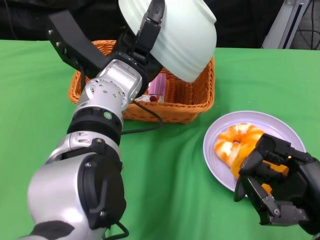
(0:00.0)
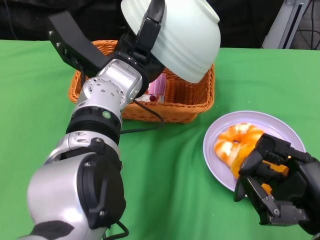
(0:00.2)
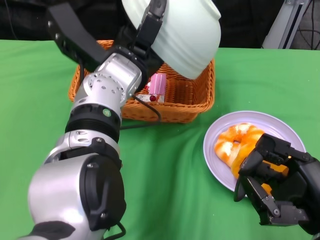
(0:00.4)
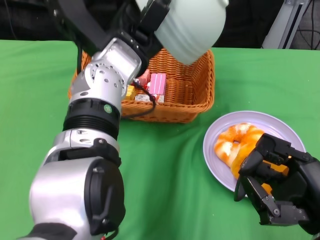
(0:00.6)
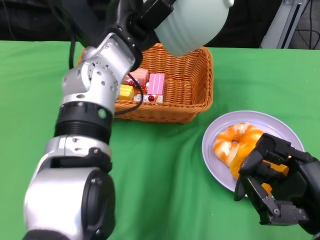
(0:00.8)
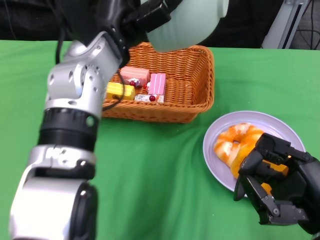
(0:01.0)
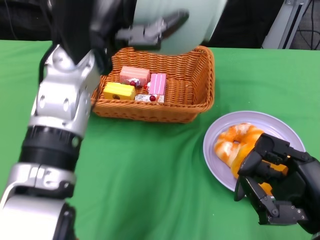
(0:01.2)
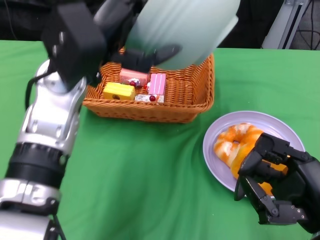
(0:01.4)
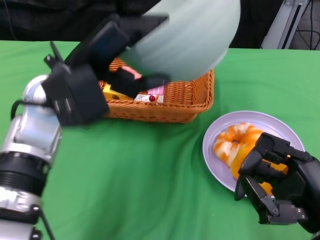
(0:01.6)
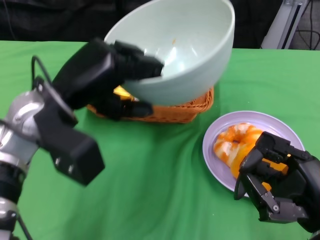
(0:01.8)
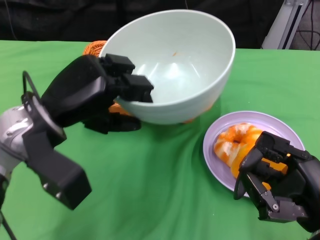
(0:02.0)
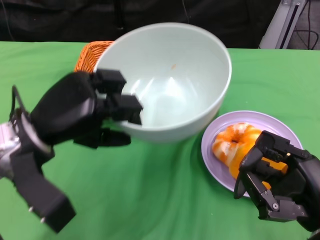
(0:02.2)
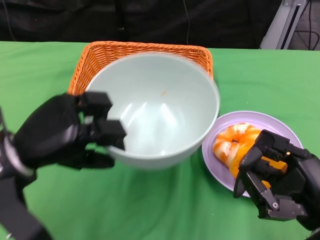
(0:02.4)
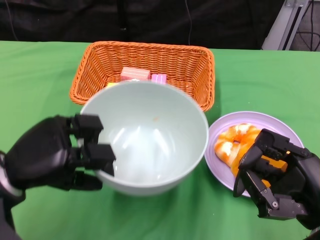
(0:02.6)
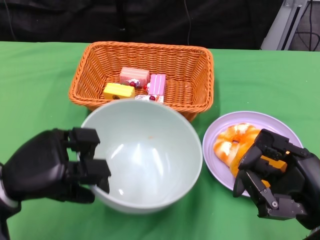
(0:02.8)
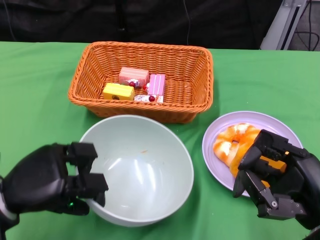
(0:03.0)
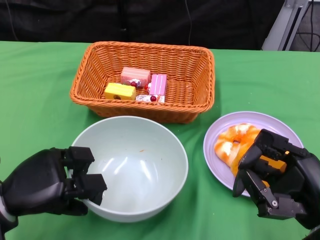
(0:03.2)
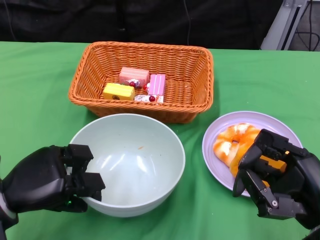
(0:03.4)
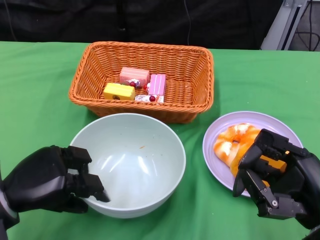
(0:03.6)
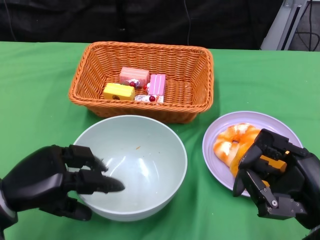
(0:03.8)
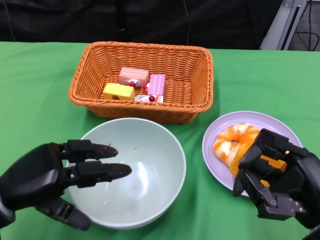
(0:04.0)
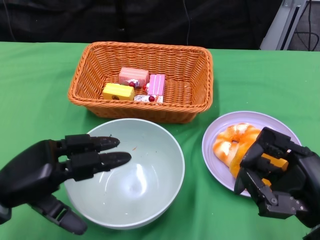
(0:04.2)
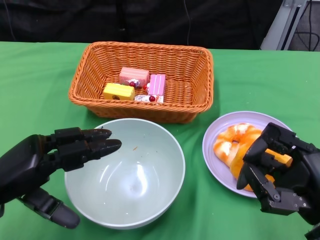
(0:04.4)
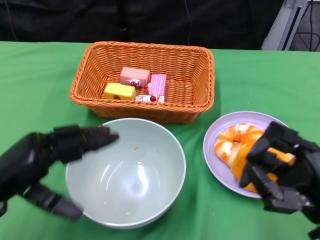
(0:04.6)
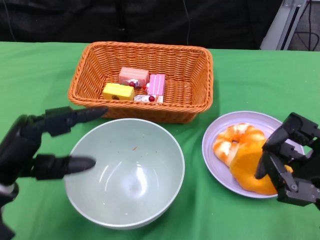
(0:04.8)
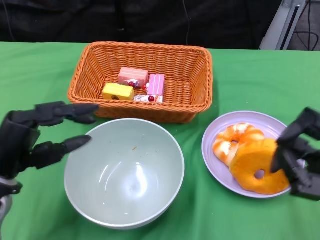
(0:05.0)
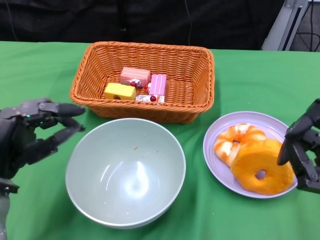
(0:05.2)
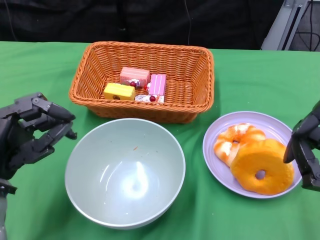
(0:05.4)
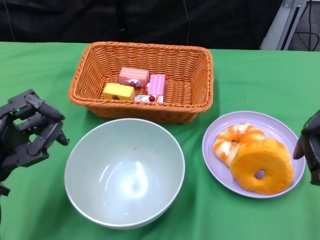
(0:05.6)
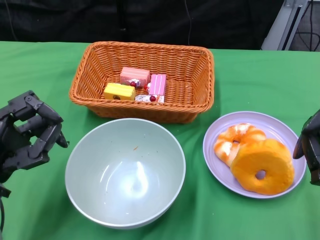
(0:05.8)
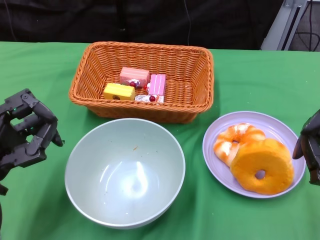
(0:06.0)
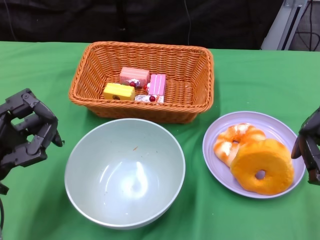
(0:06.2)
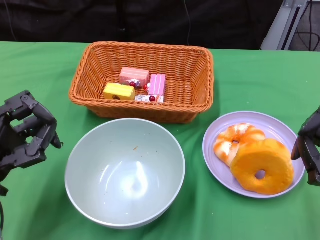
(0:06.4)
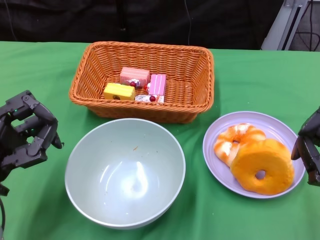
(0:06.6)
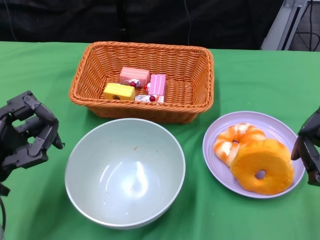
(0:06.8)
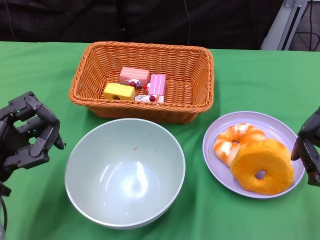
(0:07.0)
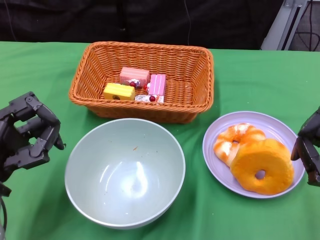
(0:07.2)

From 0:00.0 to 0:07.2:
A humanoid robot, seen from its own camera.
Step, from 0:00.6 to 0:04.0: Place the bowl on the table with the left gripper.
From 0:00.0 to 0:01.4: The left hand moves to the left, roughly 5 cm.
From 0:01.4 to 0:02.8: The left hand shifts roughly 20 cm downward, to the left and backward.
From 0:04.4 to 0:05.8: The right hand heads to the right, covering some 5 cm.
From 0:05.8 to 0:07.2: The two hands keep their place.

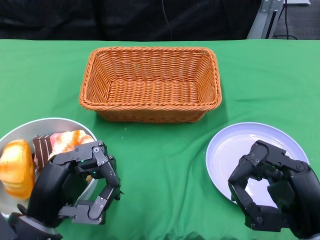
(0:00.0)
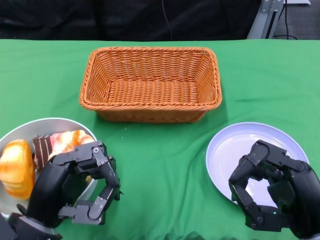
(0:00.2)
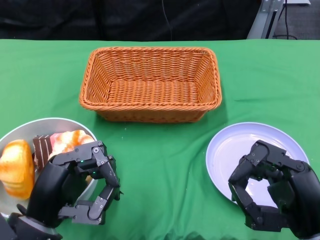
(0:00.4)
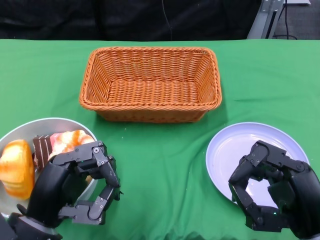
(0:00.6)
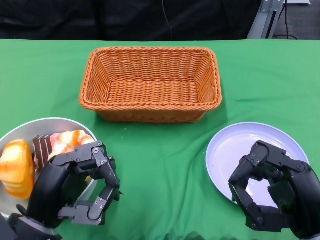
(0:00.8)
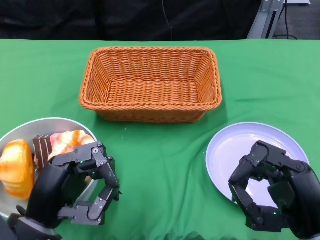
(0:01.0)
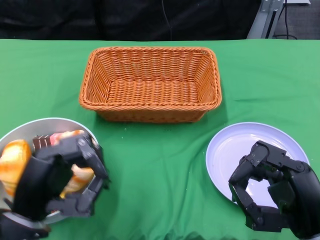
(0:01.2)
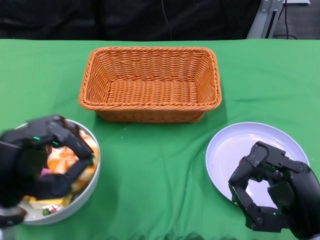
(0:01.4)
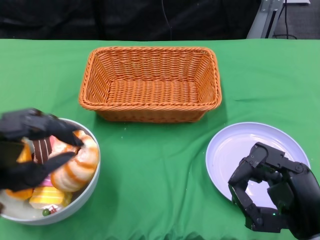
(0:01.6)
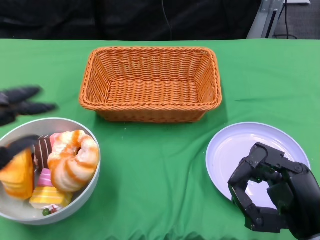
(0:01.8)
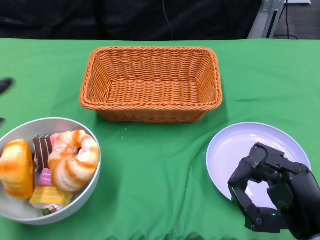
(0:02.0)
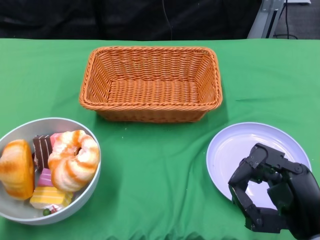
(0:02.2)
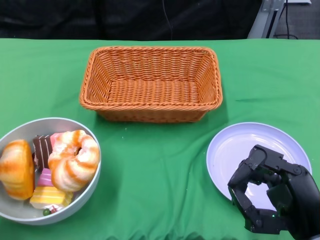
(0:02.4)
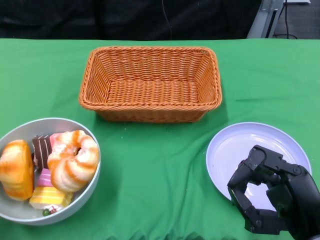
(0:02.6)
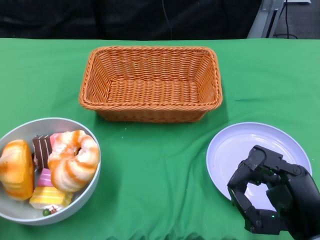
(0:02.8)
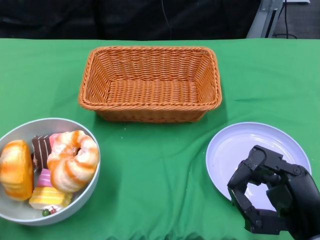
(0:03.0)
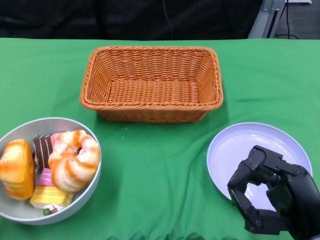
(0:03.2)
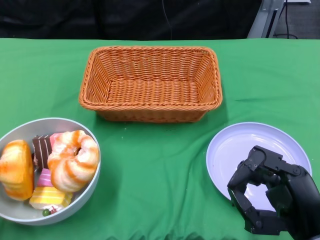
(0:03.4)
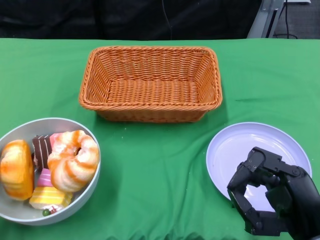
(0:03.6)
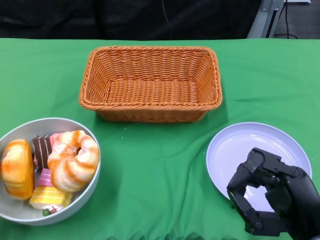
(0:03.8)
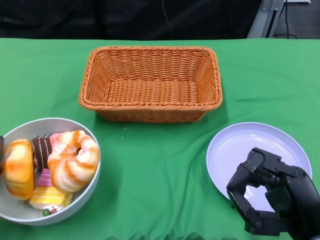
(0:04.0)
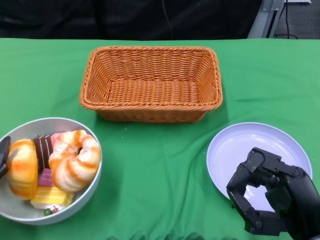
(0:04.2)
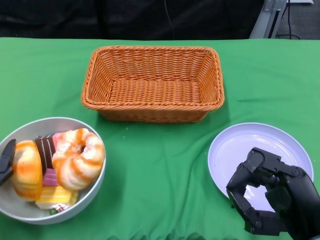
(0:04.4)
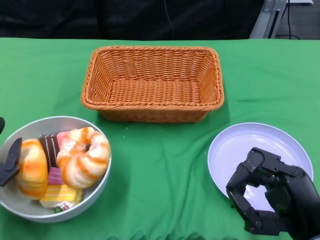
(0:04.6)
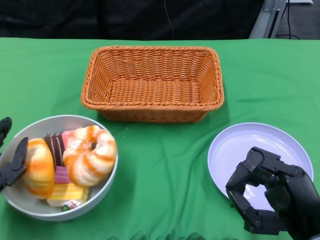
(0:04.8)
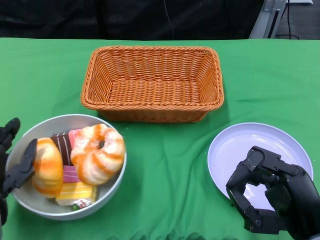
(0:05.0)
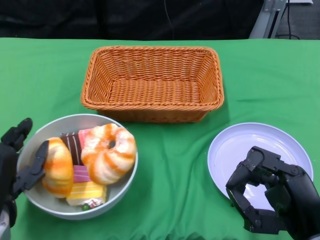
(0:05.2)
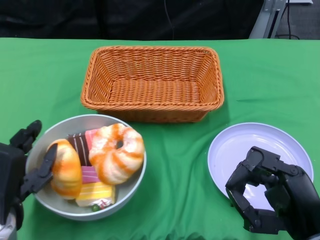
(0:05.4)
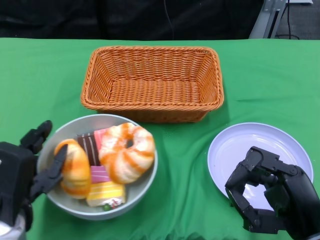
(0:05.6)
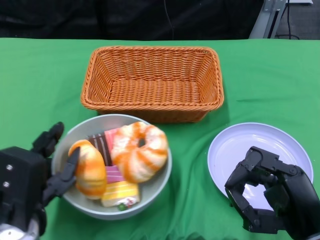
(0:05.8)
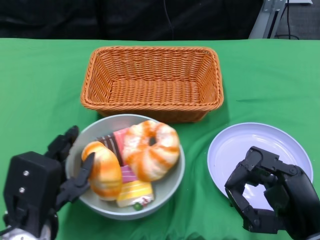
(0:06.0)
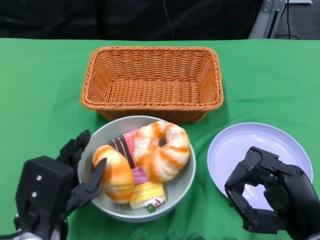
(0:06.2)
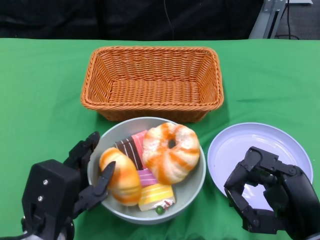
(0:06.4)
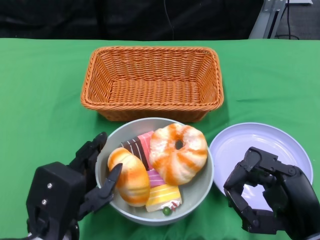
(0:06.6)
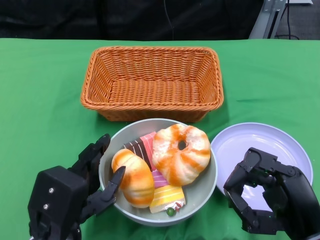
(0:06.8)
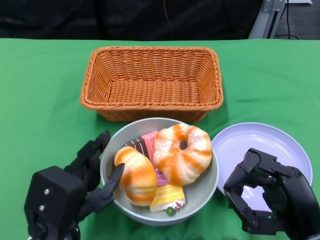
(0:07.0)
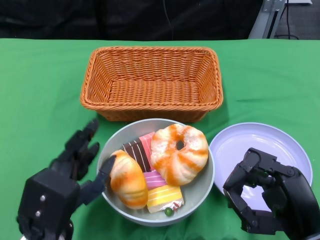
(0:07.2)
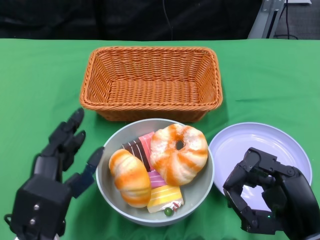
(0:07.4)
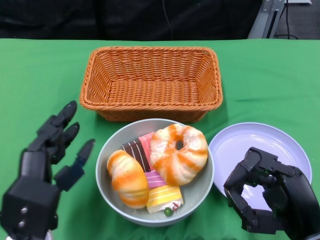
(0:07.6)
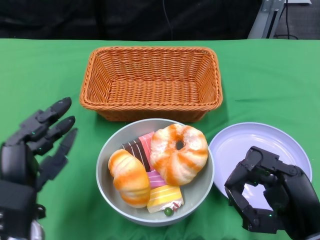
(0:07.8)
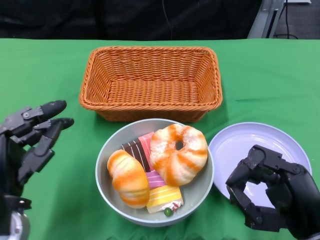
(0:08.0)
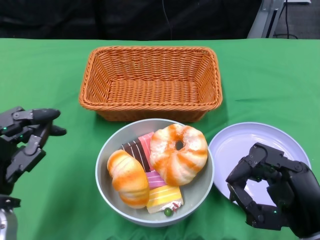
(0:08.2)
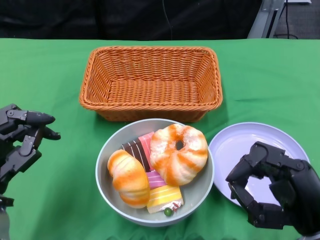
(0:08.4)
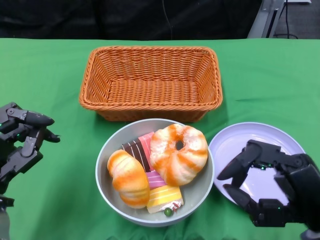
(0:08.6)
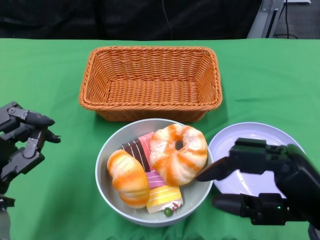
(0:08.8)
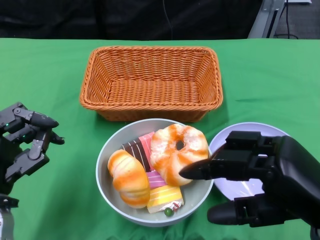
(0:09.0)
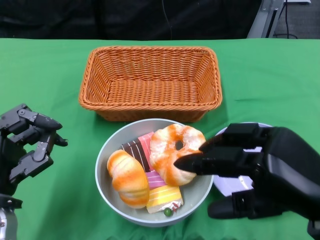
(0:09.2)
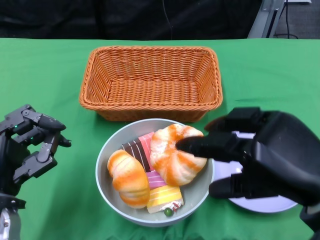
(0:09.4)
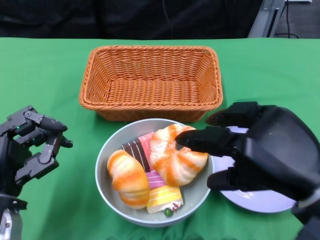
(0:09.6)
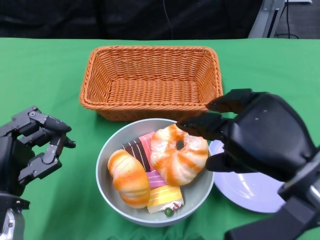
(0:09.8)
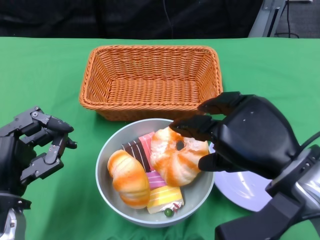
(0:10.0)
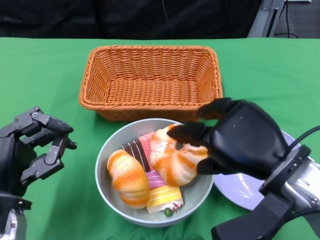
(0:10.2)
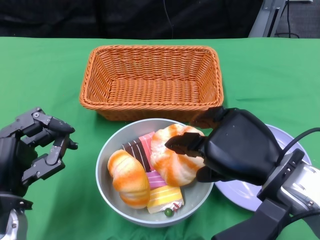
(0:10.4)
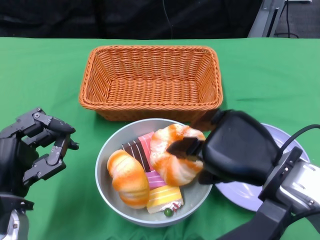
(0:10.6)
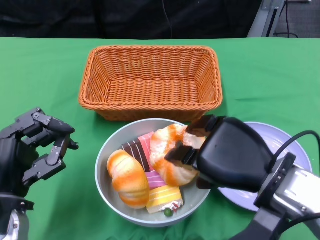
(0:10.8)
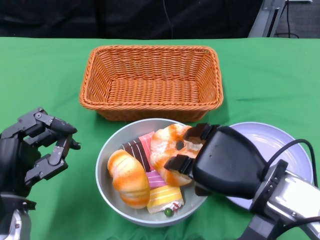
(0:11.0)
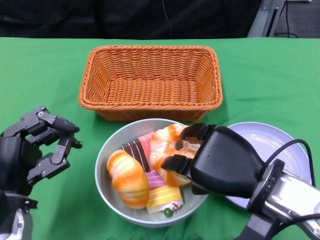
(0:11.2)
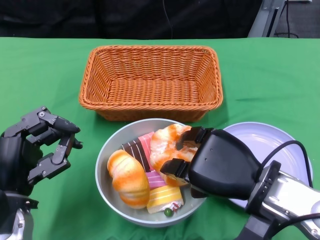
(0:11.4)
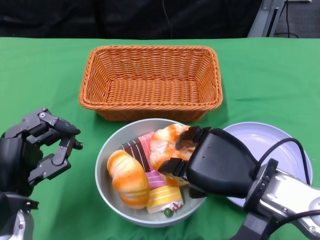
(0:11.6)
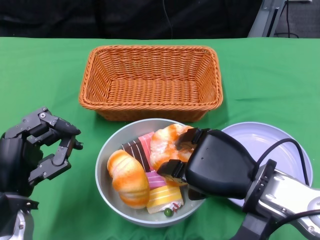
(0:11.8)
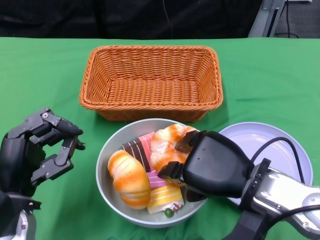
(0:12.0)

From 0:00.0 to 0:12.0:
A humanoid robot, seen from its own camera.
Step, from 0:00.0 to 0:07.2: Push the bowl to the center of the table using the left gripper.
From 0:01.6 to 0:03.0: The left hand goes approximately 10 cm to the left and downward.
From 0:04.4 to 0:06.0: The left hand shifts approximately 10 cm to the right.
From 0:07.6 to 0:09.0: The right hand heads upward, covering some 10 cm, while the left hand shifts roughly 5 cm to the left.
From 0:09.0 to 0:10.4: The right hand is displaced forward by approximately 5 cm.

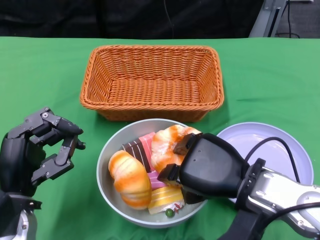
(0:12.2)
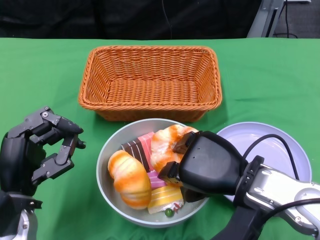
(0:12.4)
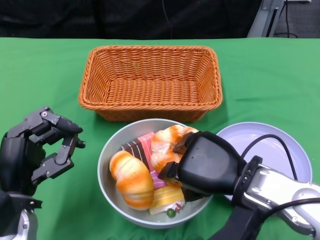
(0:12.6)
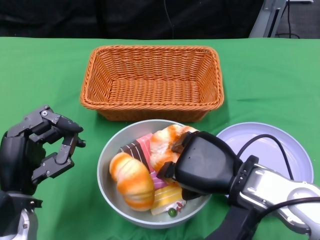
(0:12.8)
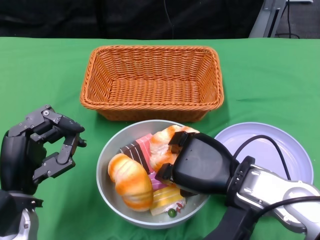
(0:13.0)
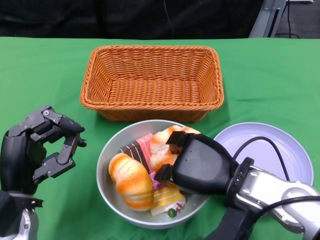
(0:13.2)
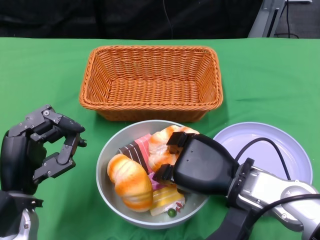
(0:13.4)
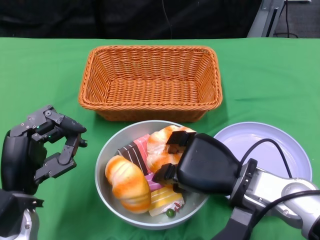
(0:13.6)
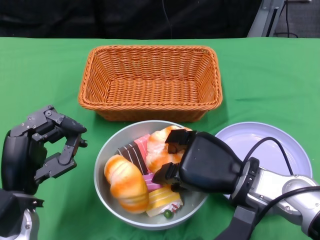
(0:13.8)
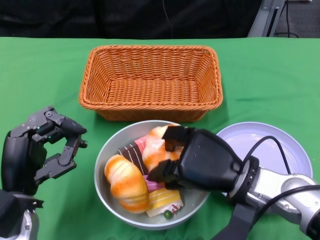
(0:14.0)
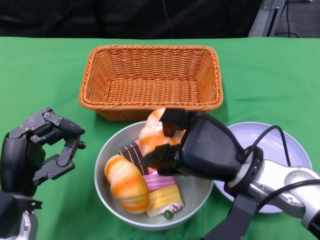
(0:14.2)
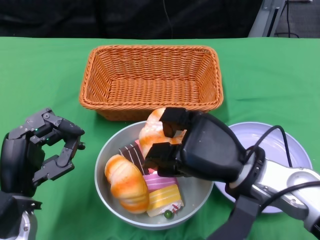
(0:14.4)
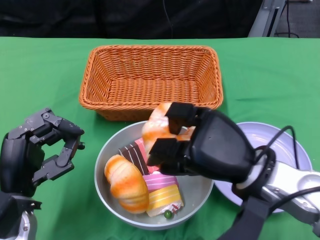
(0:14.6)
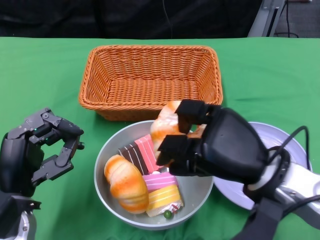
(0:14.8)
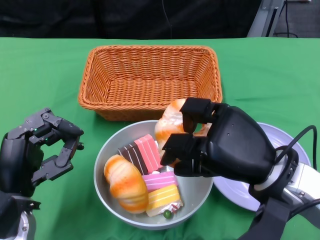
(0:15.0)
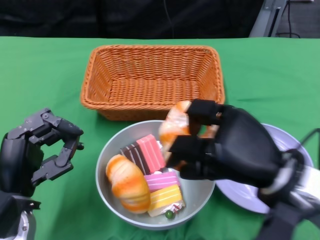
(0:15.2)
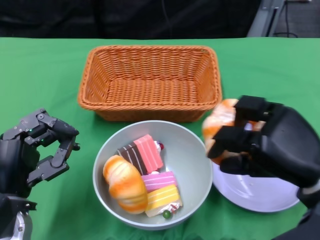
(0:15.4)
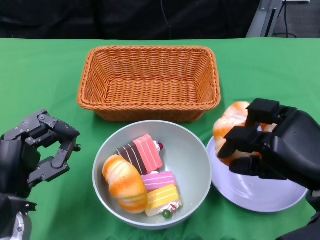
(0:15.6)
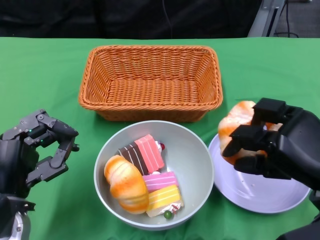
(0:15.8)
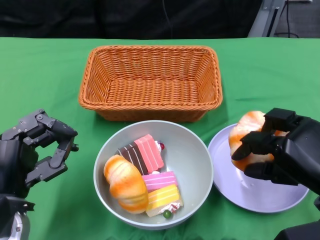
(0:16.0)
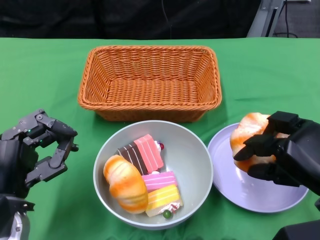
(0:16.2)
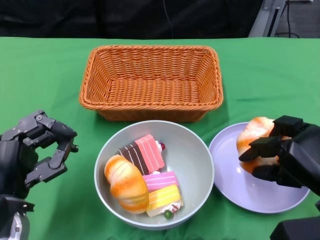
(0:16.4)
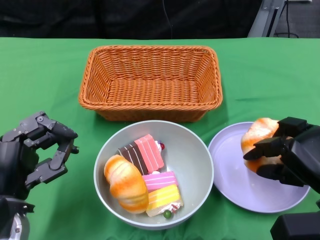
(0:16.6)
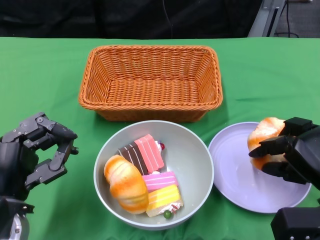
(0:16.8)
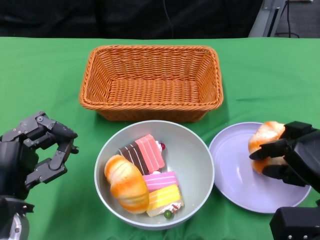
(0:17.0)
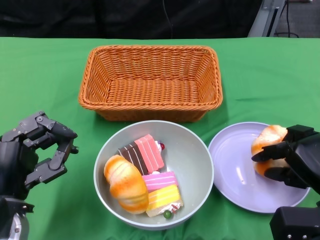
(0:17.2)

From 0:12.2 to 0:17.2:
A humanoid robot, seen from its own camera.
From 0:12.2 to 0:13.8: The hands move only a little.
From 0:13.8 to 0:15.6: The right hand is displaced to the right by some 10 cm.
From 0:15.6 to 0:17.2: The right hand goes approximately 10 cm downward.
